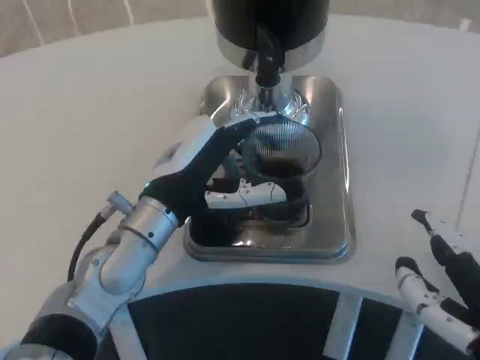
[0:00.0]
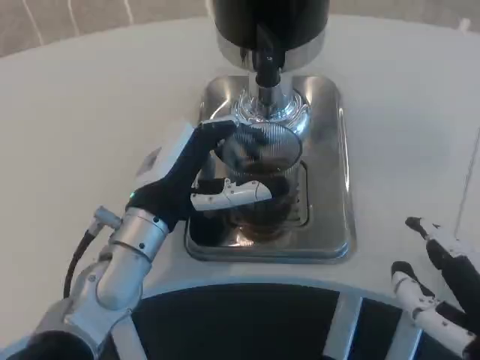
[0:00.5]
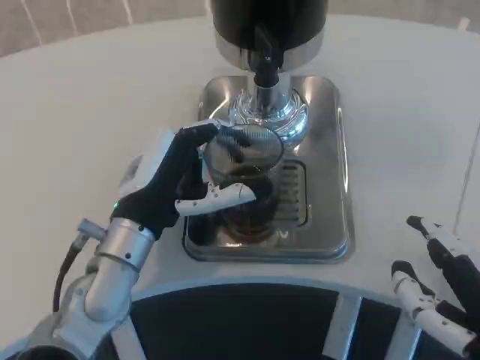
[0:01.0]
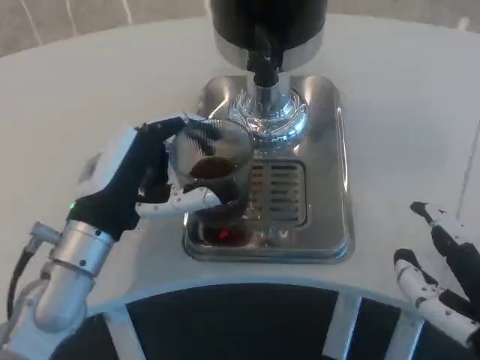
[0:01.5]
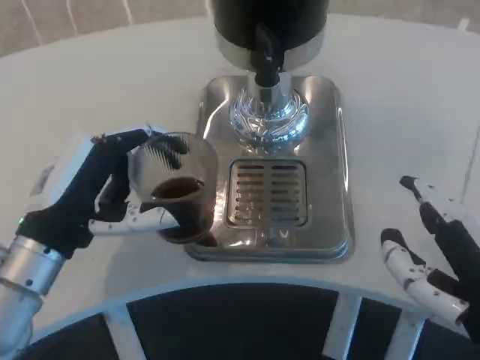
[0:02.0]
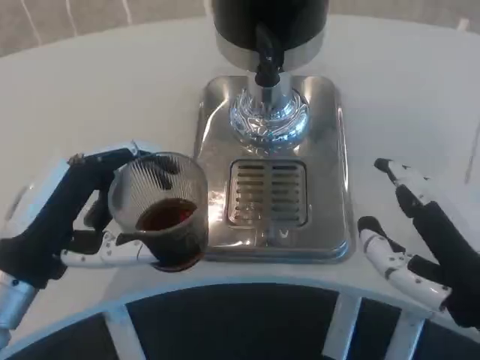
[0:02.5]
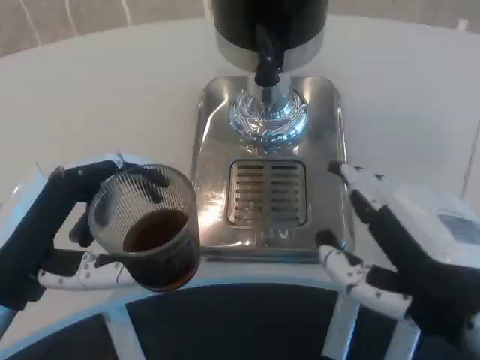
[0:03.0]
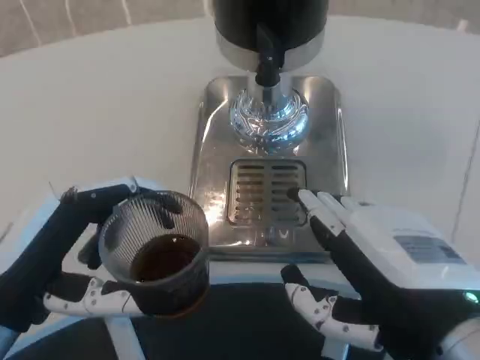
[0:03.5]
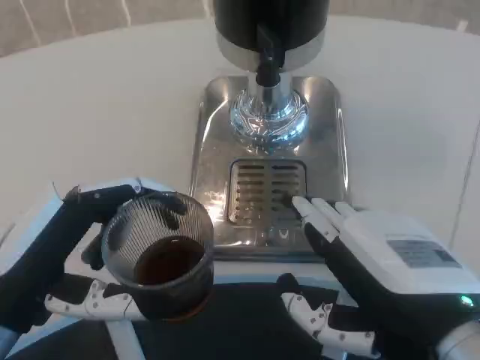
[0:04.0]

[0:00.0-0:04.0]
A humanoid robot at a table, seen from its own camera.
Task of the whole recording: Grasp the cup under the faucet to collect the drink, then remove the cup.
0:00.0 to 0:02.0: The left hand goes some 10 cm to the left and backward.
0:02.0 to 0:04.0: The left hand travels backward by roughly 5 cm.
